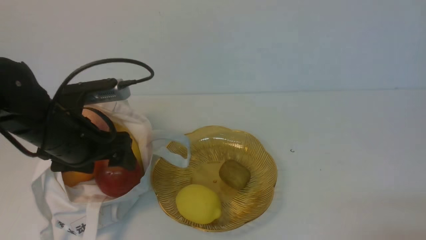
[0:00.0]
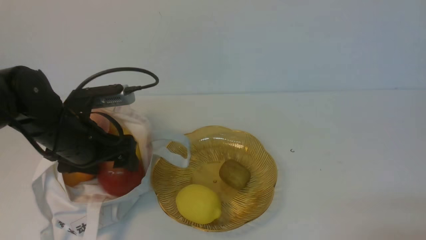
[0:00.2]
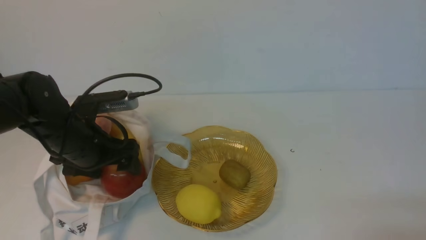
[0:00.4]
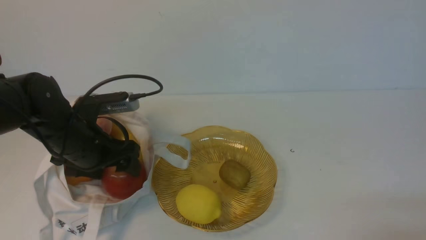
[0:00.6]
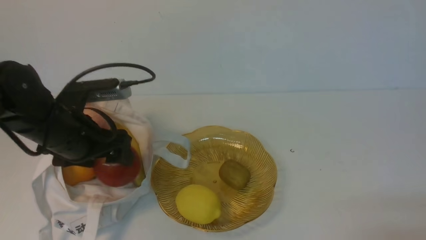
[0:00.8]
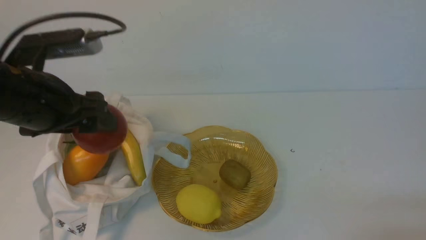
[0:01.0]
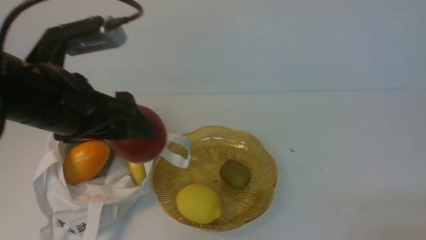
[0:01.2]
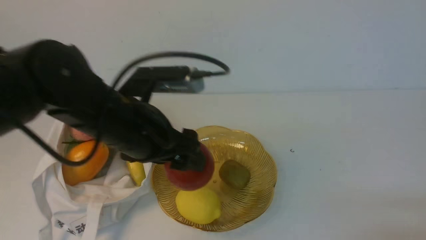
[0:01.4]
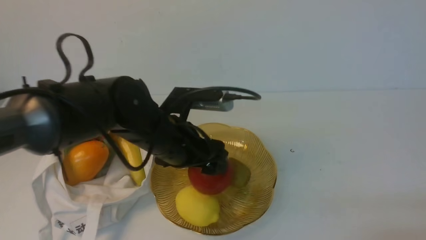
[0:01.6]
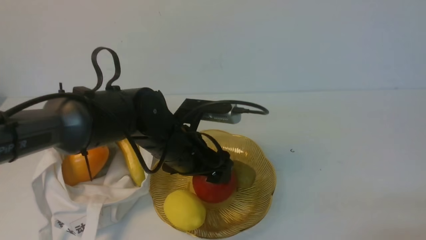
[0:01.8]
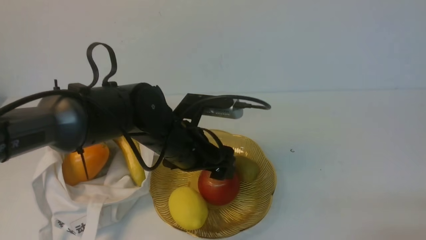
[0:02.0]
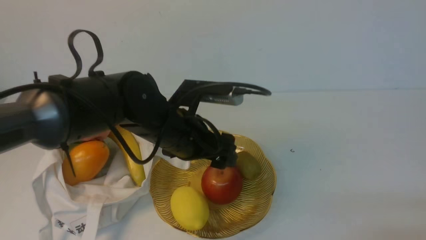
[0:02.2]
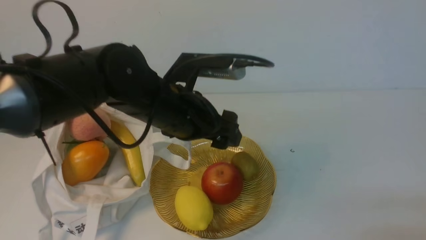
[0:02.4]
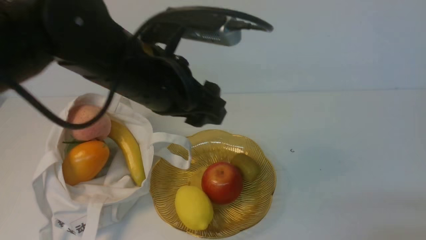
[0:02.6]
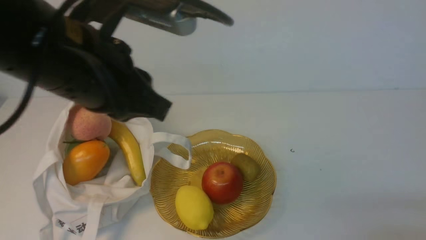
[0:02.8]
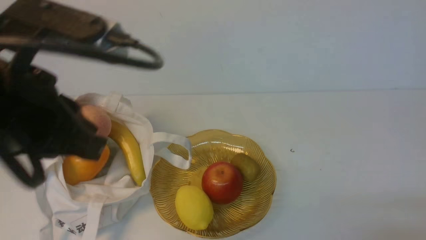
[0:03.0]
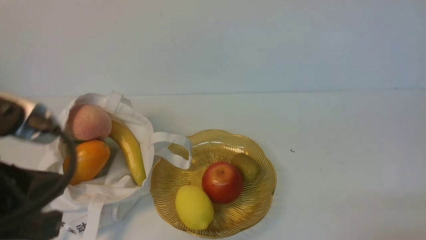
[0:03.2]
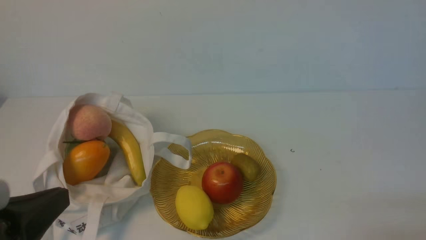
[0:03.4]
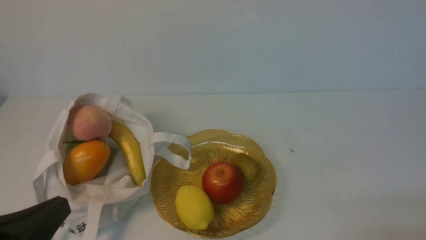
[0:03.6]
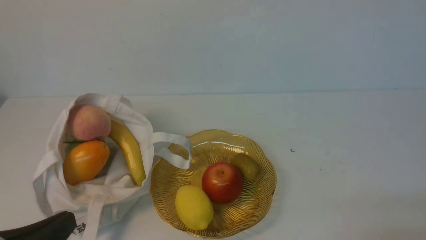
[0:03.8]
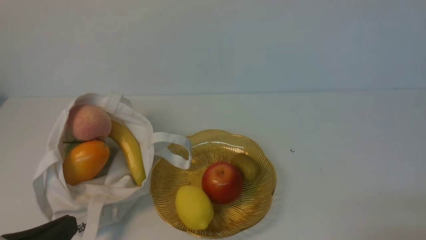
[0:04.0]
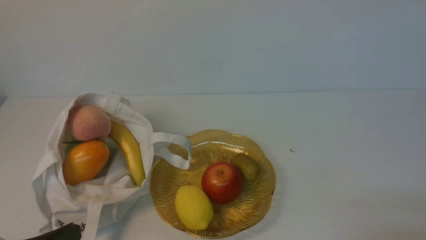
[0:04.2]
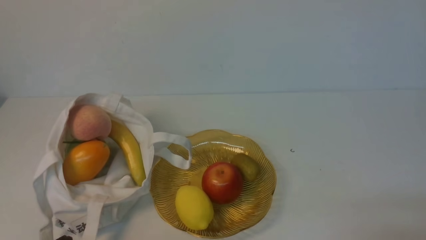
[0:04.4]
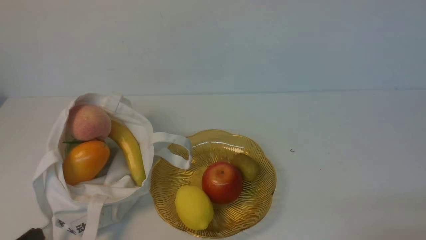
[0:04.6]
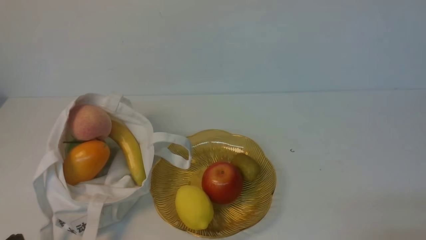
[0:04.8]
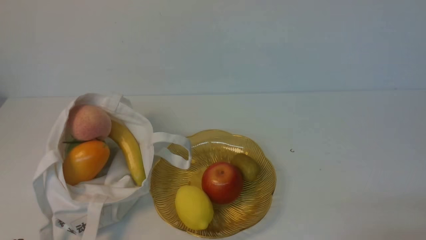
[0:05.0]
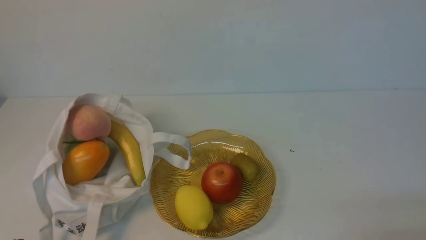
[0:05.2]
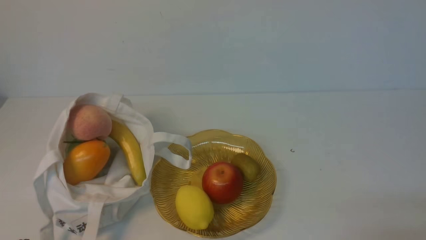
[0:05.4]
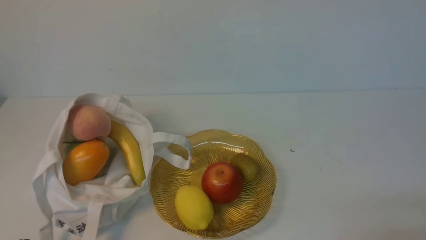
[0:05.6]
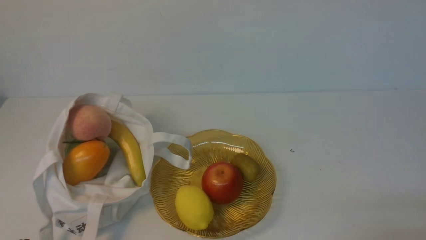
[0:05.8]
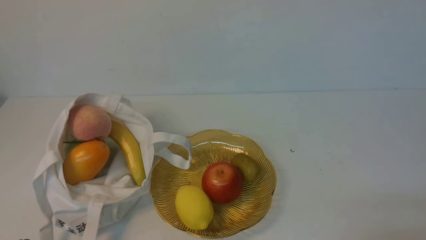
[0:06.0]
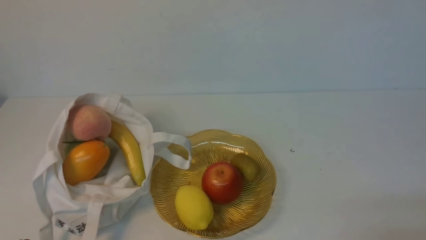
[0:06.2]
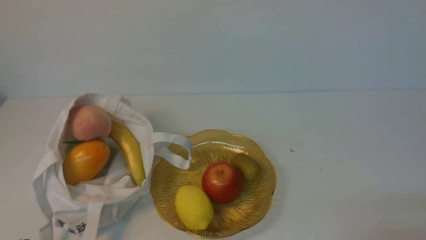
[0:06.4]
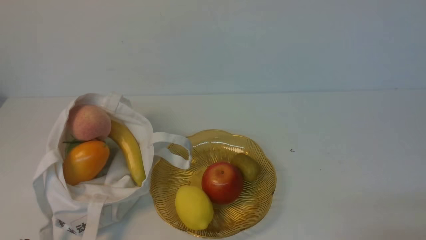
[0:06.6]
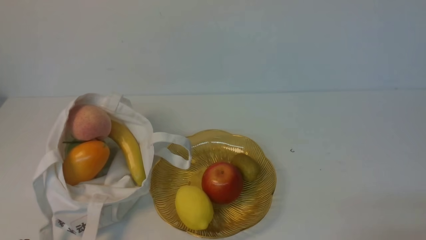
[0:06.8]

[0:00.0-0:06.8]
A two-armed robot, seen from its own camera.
Step, 0:00.8 to 0:01.8: use the left arm to put the apple into the empty plate on the right.
0:00.0 to 0:01.4: The left gripper moves to the right, approximately 10 cm, and goes upward and returns, some 5 cm each way.
0:01.4 to 0:02.8: The left gripper shifts approximately 15 cm upward and backward, and closes.
0:02.8 to 0:04.0: The left gripper moves downward, backward and to the left, some 25 cm.
0:04.0 to 0:05.4: The left gripper shifts about 5 cm downward.
0:05.4 to 0:06.8: Both grippers stay put.
